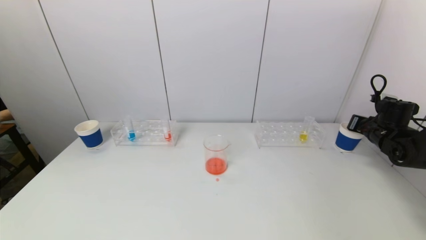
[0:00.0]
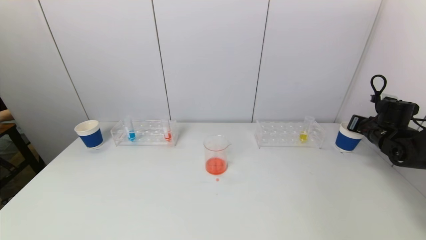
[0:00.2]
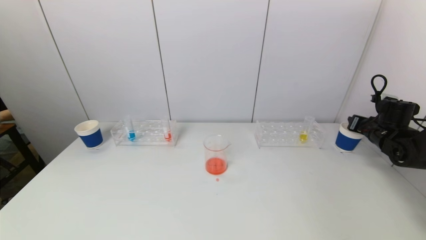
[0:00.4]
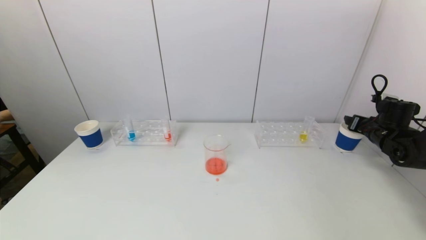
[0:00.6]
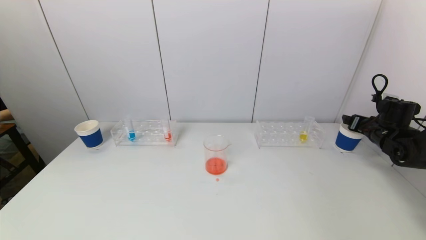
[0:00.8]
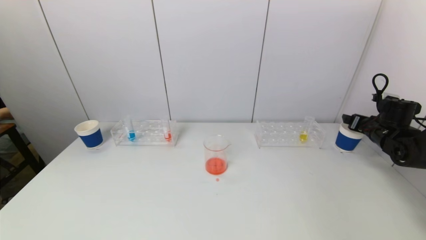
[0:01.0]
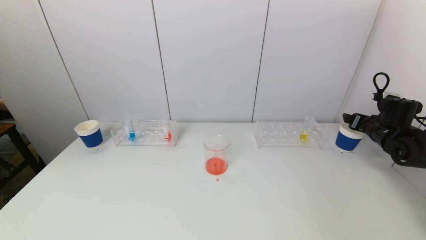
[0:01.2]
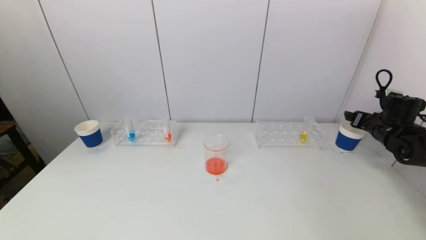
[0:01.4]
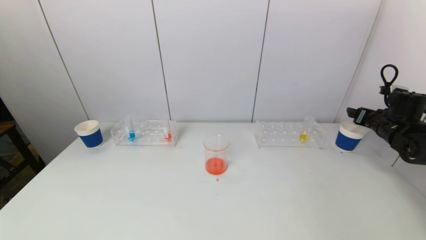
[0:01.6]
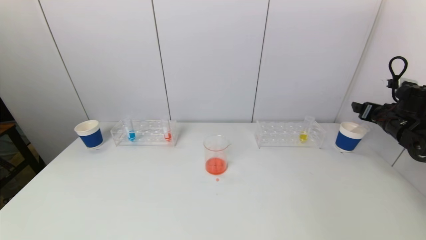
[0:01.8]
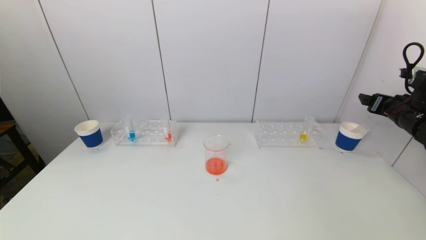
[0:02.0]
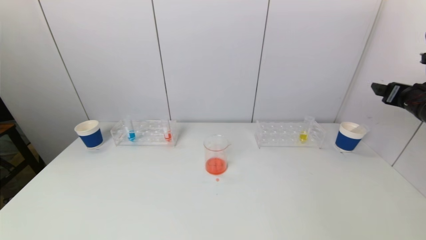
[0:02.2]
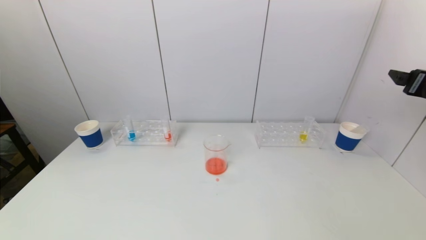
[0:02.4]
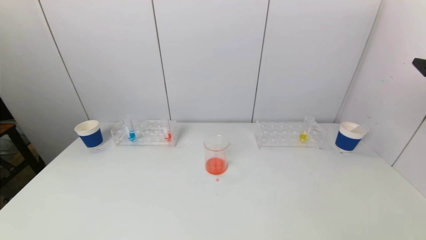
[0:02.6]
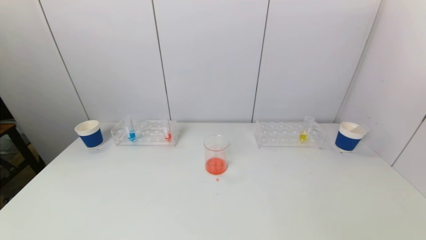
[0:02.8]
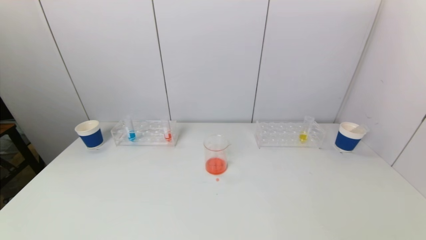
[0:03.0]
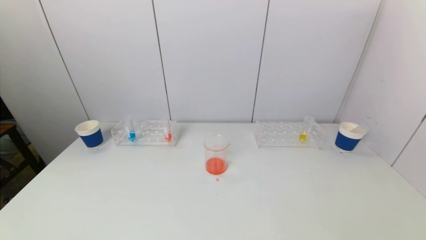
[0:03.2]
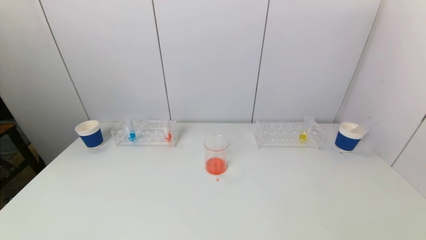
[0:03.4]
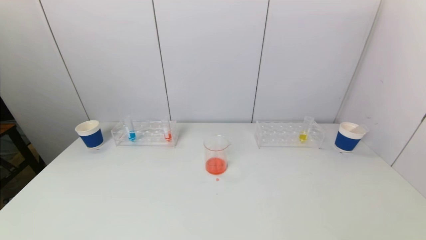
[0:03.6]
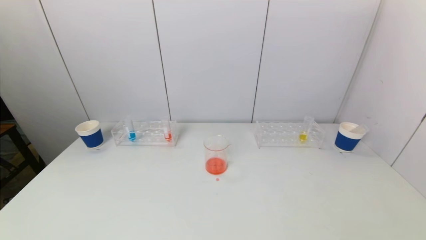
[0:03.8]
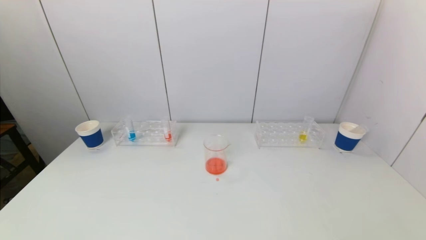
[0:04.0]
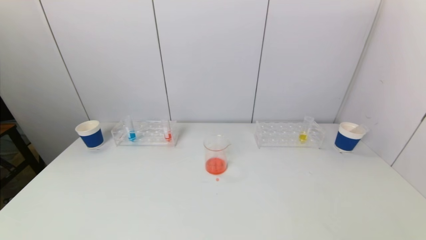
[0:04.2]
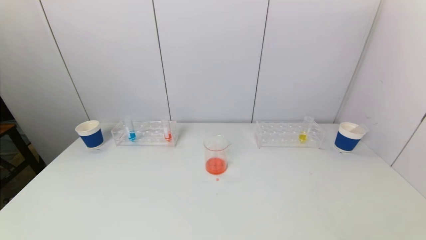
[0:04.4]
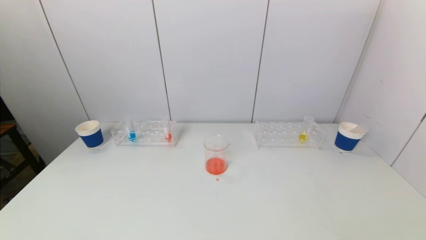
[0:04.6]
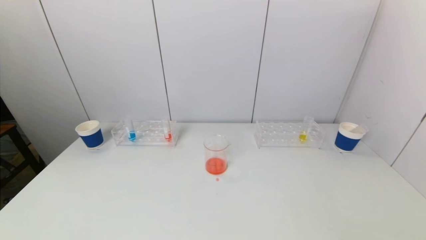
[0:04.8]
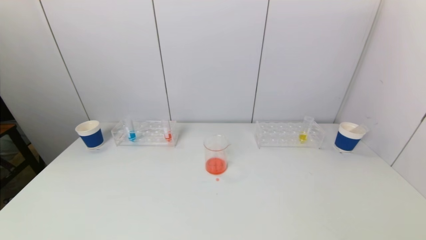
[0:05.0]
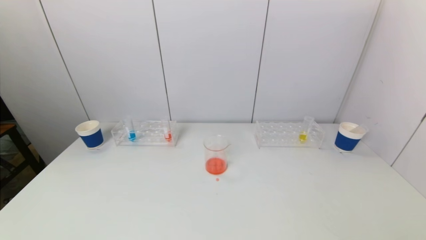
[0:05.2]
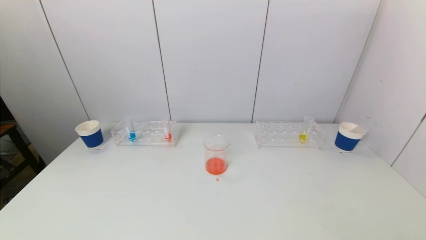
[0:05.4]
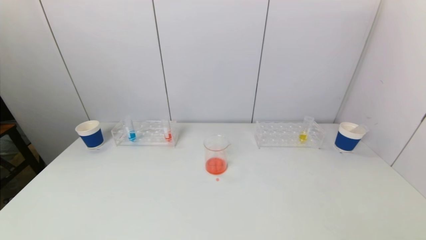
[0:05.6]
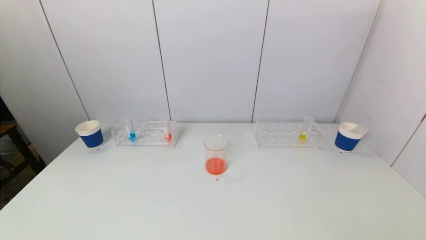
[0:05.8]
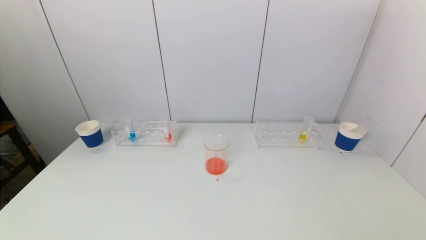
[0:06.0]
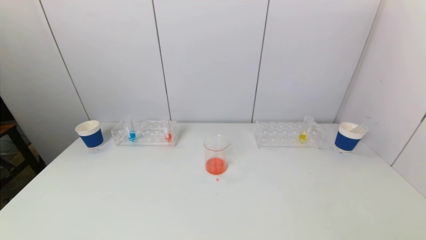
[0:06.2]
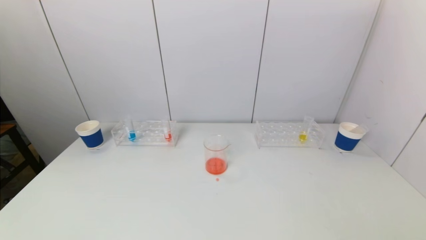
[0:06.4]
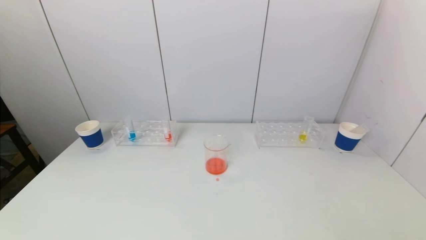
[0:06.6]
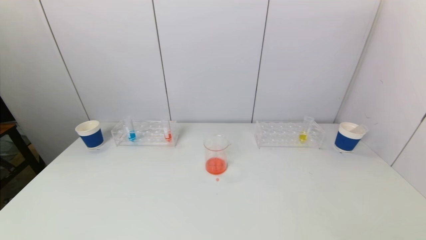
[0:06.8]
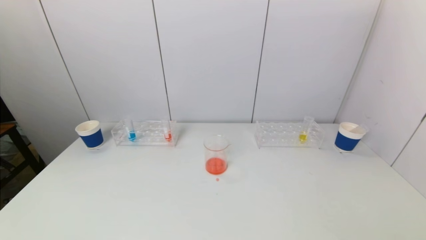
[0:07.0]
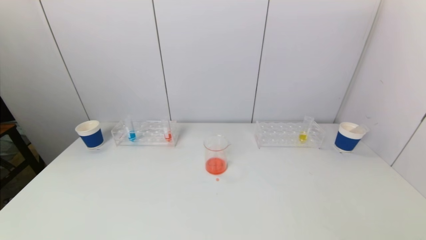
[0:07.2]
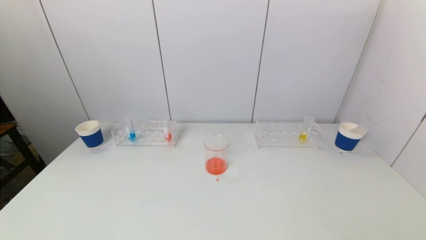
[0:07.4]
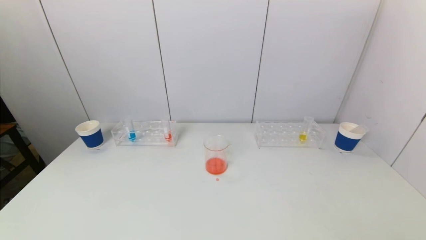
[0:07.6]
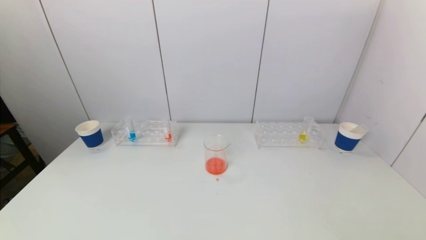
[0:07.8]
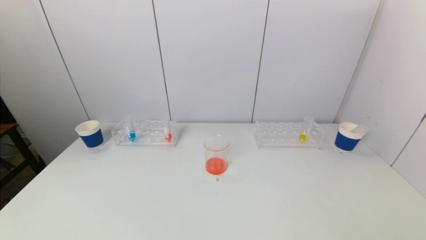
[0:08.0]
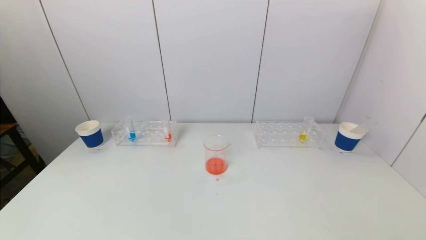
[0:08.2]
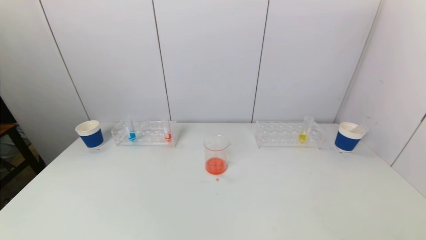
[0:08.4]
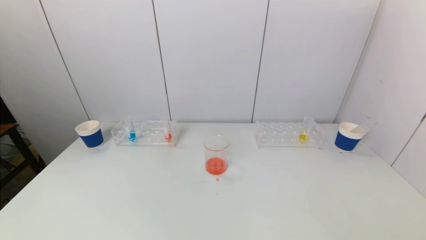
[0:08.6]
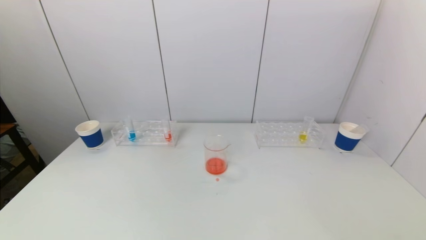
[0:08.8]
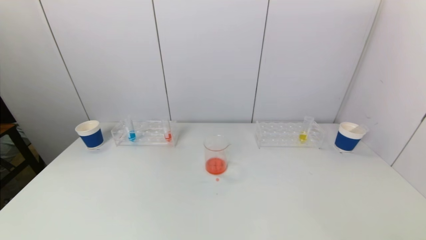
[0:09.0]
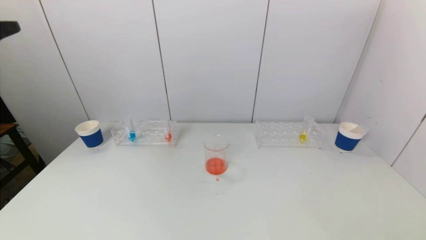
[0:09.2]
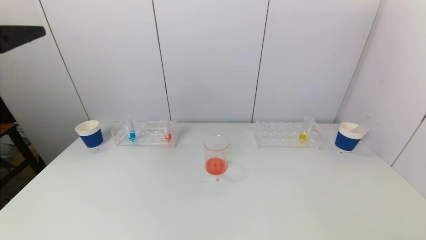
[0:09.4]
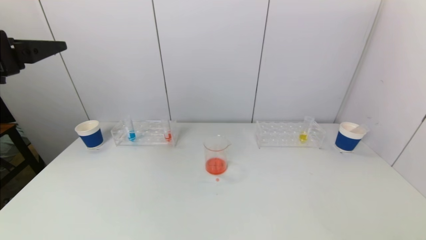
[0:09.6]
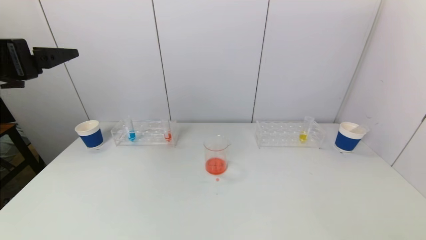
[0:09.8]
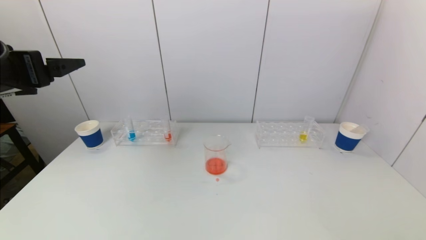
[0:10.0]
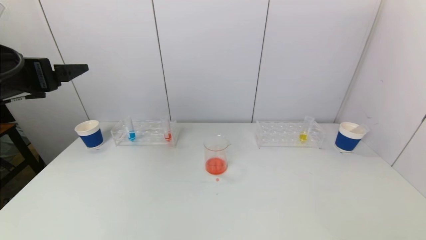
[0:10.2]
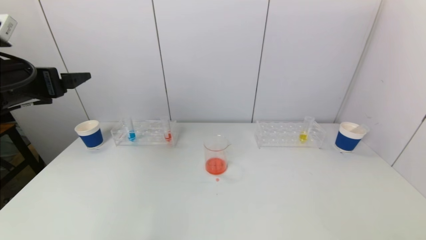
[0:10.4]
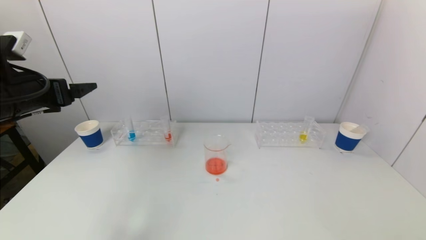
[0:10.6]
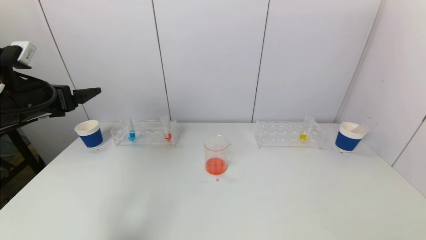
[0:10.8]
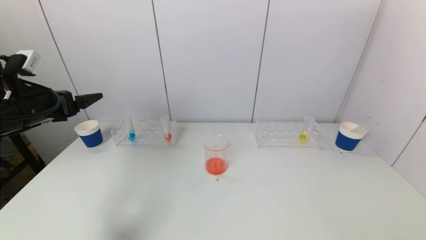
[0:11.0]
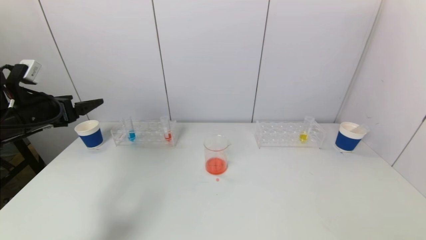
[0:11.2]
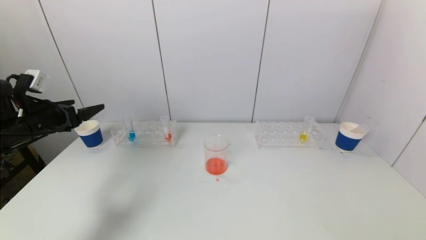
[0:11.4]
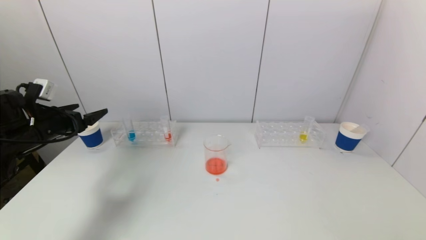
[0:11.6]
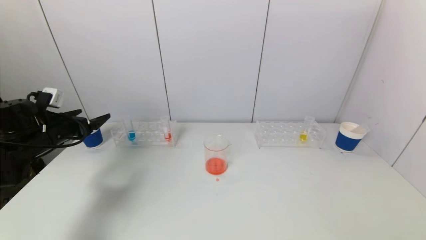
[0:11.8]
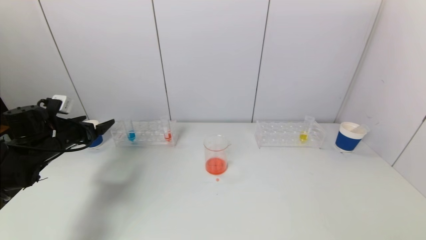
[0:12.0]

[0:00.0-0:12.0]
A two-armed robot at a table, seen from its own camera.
Task of the whole recording: pick up a test tube with pigment on left test tube rack and a test tube with pigment on right test tube rack by grippers and pour them into the beaker.
0:00.0 to 0:01.6: The right gripper opens its fingers.
0:01.6 to 0:03.0: The right gripper shifts roughly 30 cm backward and upward.
0:09.0 to 0:10.4: The left gripper is displaced forward and downward by some 15 cm.
0:10.4 to 0:12.0: The left gripper moves downward and forward, about 20 cm.

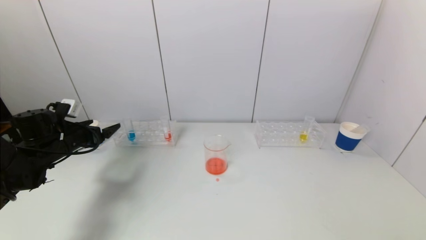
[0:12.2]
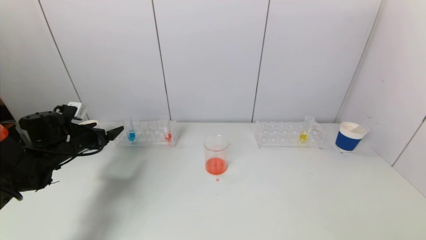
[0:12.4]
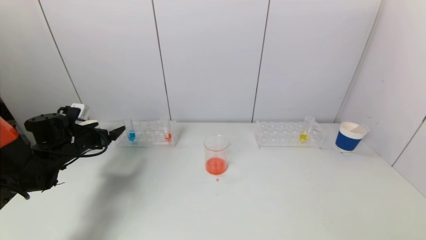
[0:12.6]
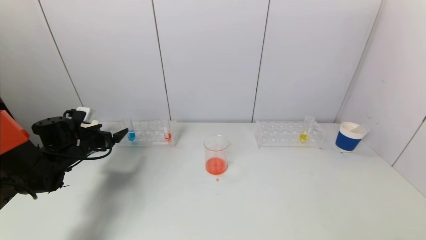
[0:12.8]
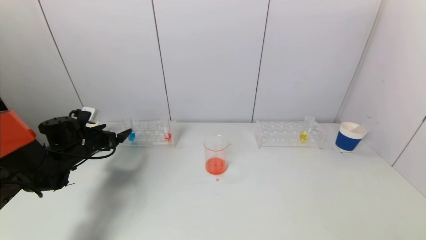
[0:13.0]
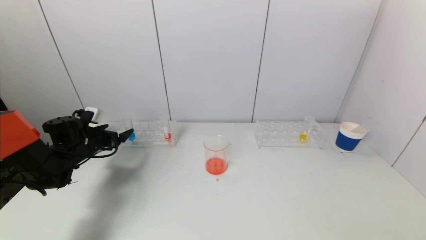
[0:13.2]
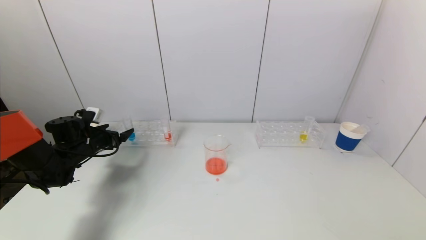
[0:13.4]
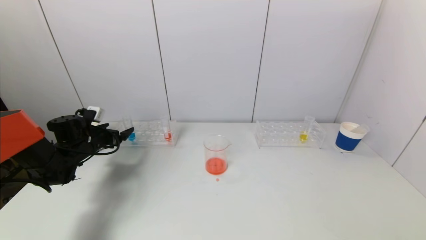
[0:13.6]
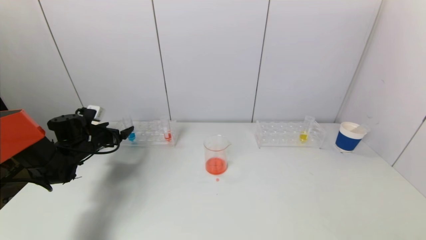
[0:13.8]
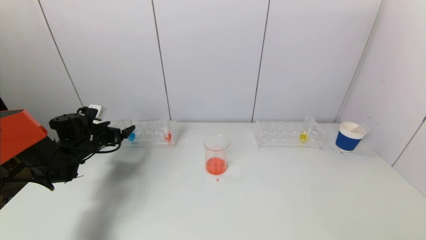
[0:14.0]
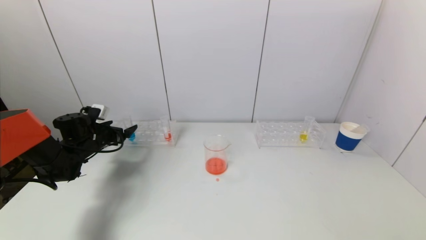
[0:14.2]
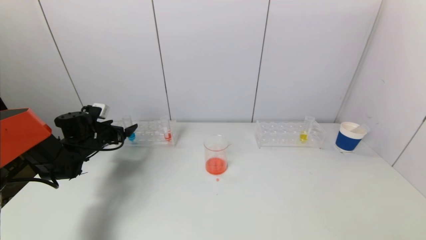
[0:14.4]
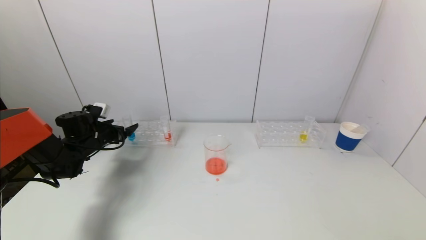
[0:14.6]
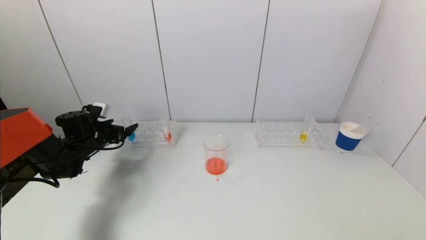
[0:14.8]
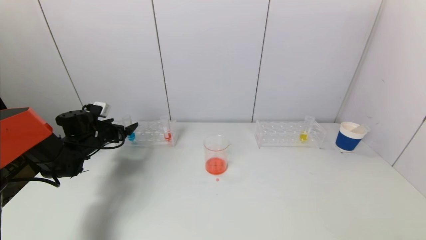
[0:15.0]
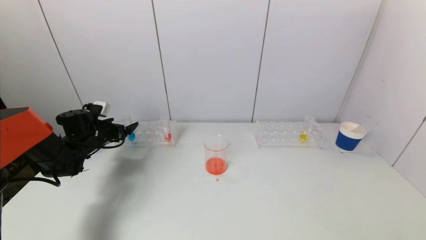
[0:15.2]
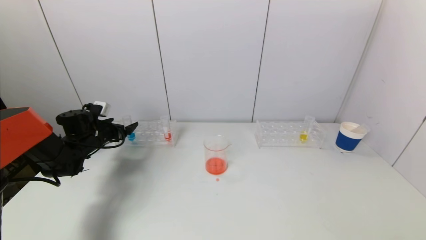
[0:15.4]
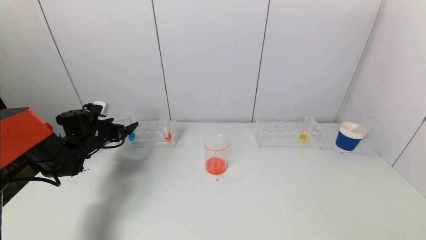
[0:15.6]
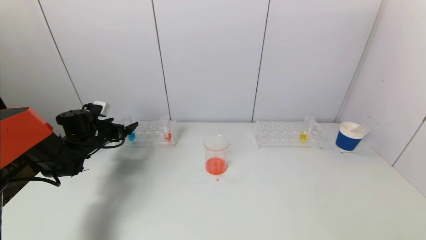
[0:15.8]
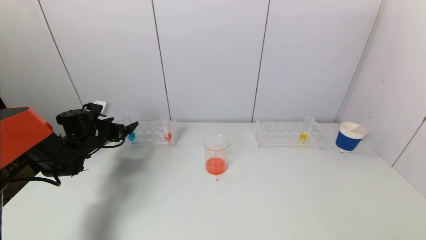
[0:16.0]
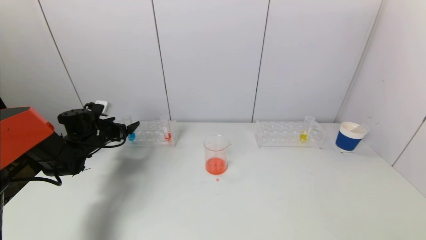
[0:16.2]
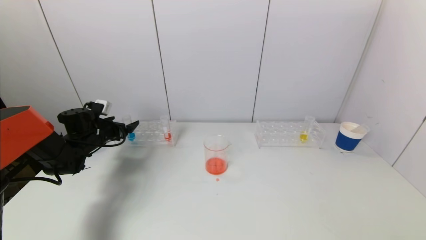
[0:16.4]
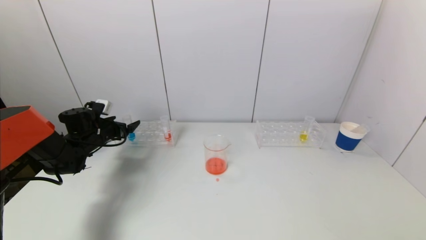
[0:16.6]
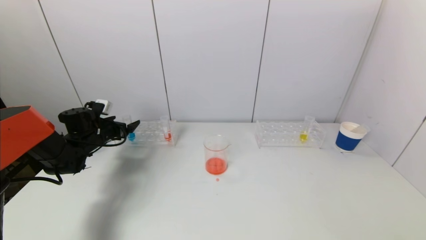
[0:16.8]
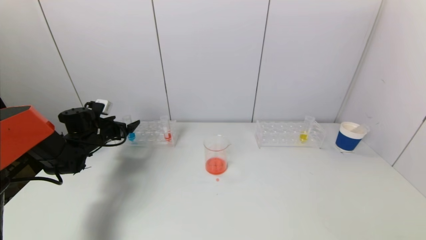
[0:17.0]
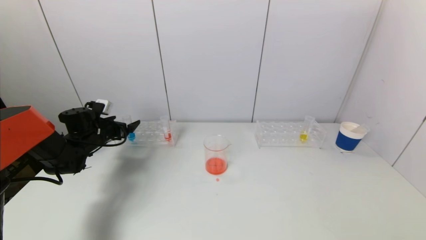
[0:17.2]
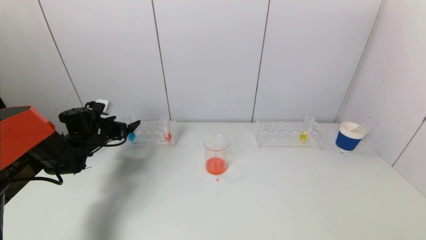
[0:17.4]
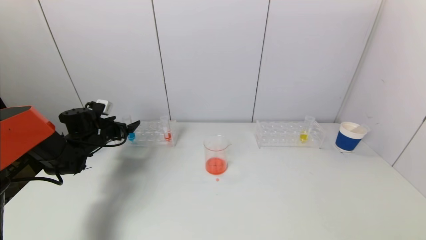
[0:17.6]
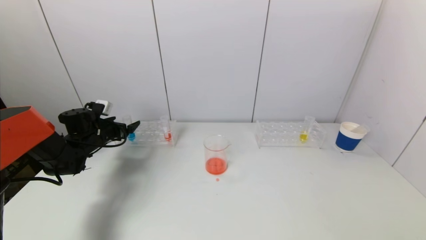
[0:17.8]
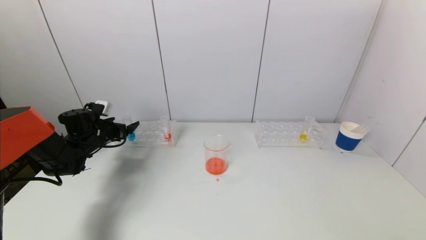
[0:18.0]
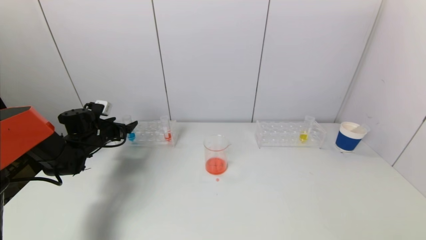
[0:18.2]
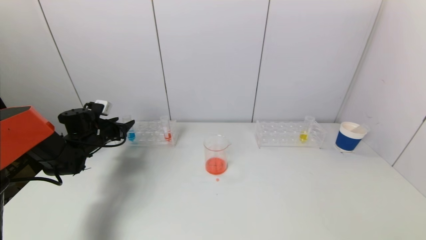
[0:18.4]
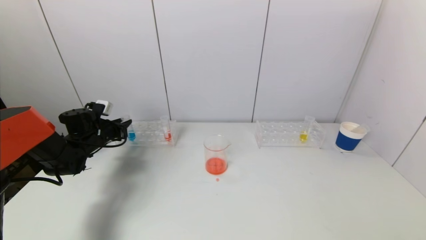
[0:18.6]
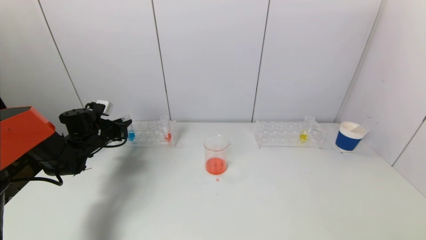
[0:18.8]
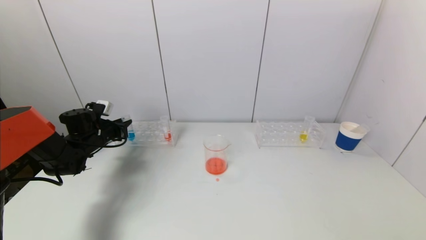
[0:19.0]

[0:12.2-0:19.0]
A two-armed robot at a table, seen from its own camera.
Task of the whole recording: pick up a test tube with pigment on left test tube rack and a test tube with pigment on right test tube rack by grippers and pour them into the beaker.
0:12.2 to 0:13.6: The left gripper ends up approximately 5 cm from where it was.
0:13.6 to 0:15.0: The grippers make only small movements.
0:15.0 to 0:17.6: Both grippers stay about where they are.
0:17.6 to 0:19.0: The left gripper closes its fingers.
